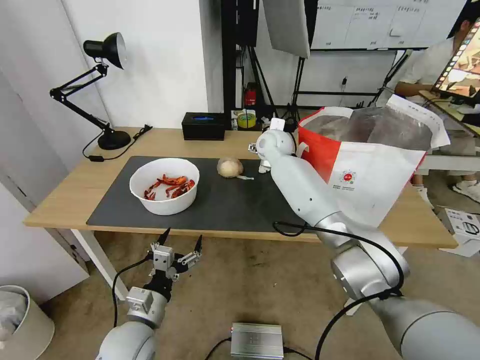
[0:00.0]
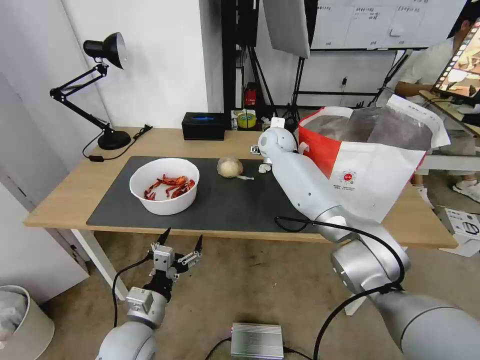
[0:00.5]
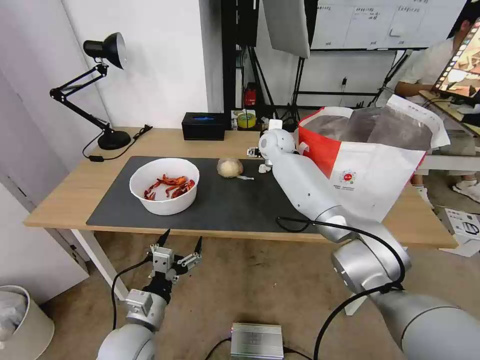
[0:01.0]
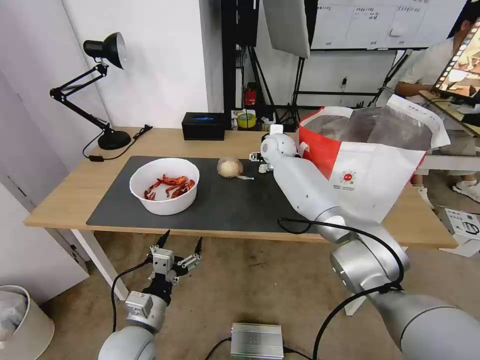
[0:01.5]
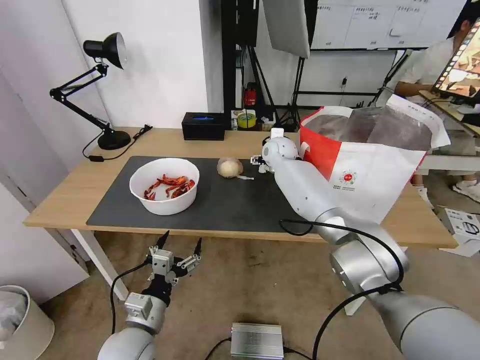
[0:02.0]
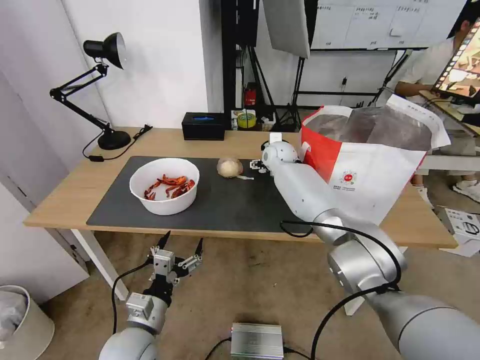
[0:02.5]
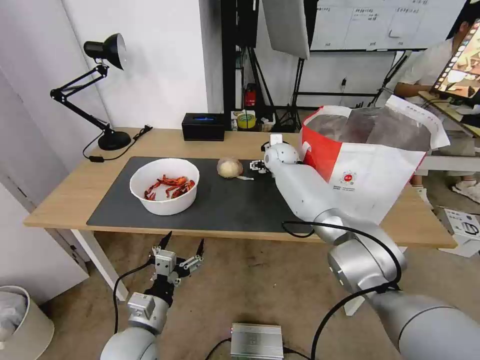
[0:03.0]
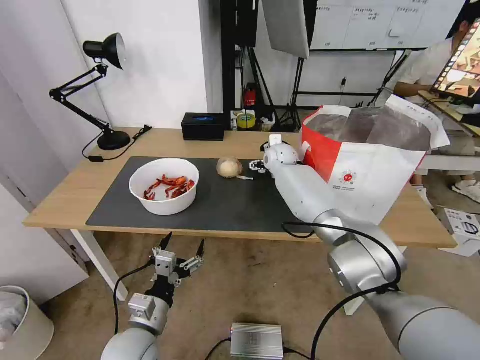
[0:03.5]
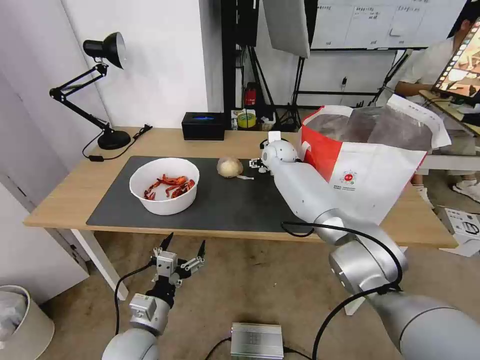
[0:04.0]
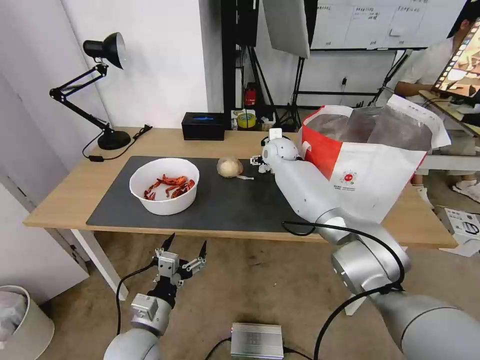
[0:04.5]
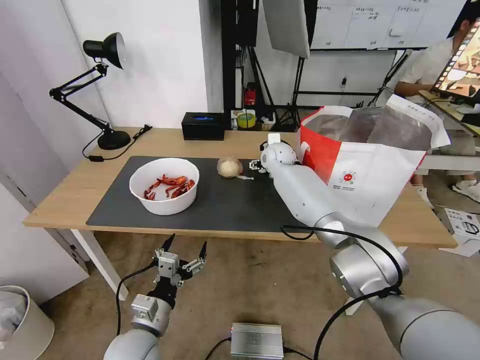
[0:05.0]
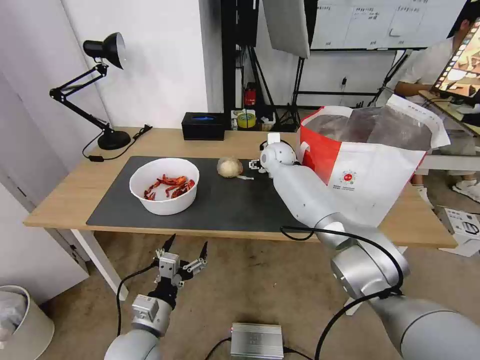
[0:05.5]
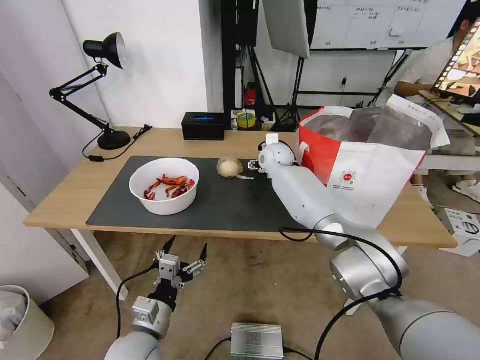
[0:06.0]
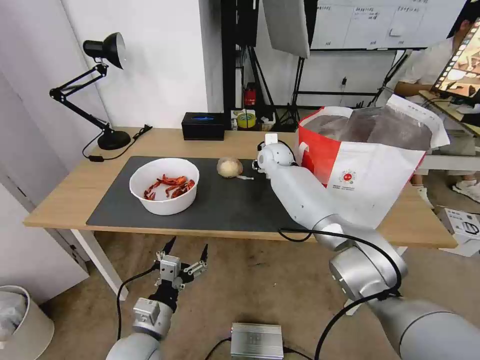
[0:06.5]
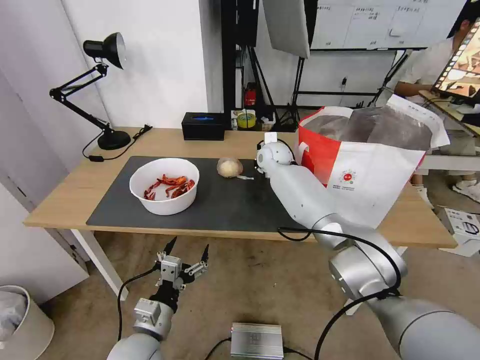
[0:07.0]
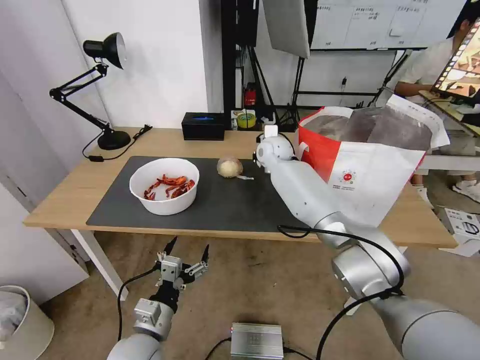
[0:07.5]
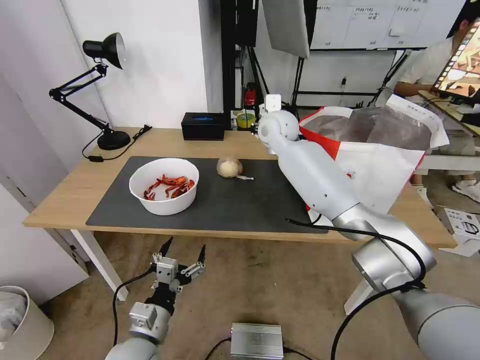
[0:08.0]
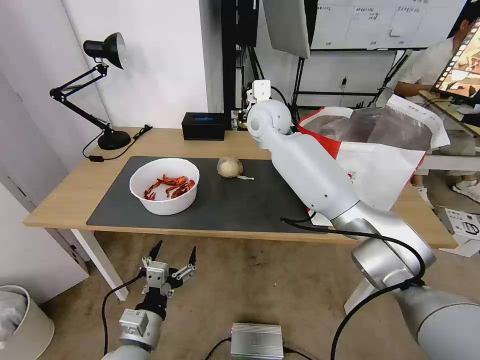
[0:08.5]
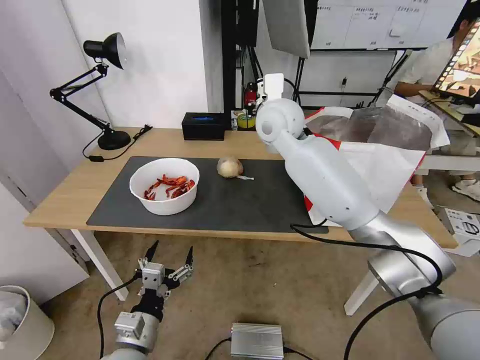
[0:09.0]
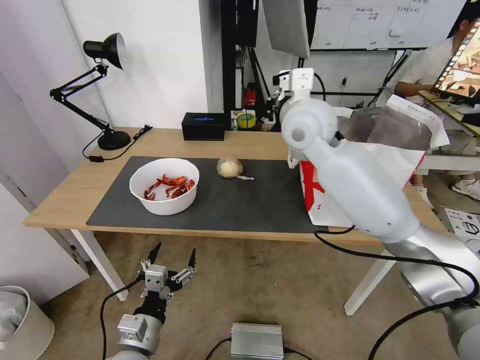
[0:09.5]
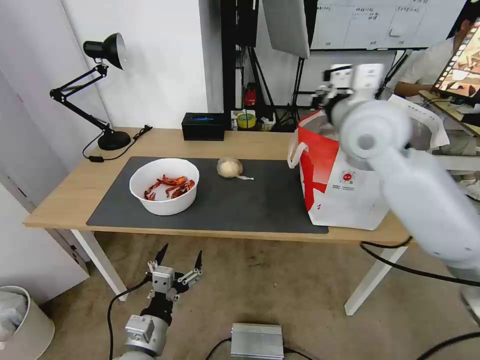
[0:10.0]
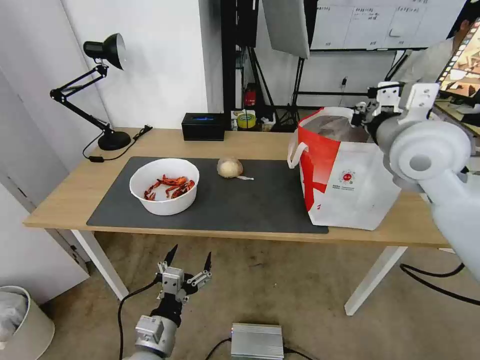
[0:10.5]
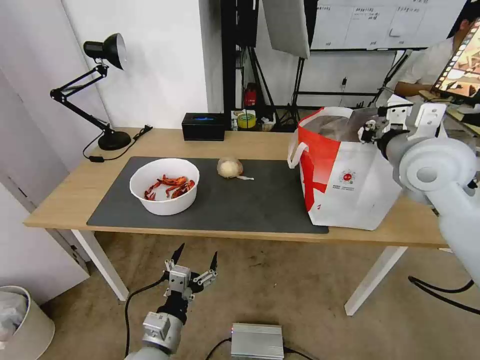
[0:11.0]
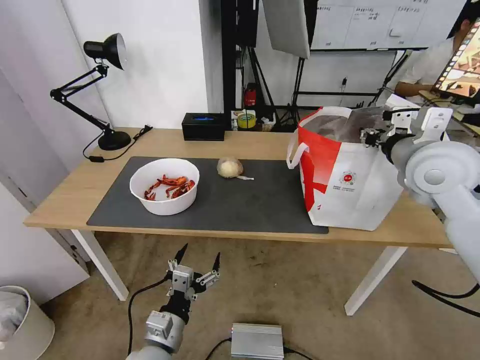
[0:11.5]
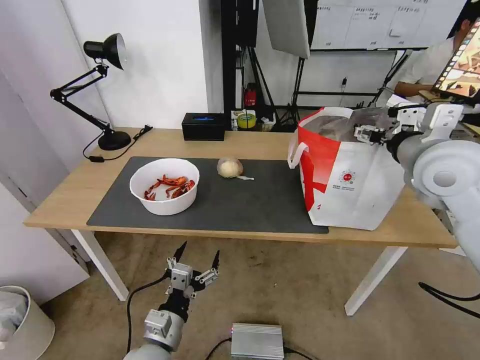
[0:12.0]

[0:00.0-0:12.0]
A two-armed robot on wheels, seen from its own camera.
Task of the whole recording: Pick up the trash from the table and place it into the takeout bag.
0.0 to 2.0 s: The grippers make only small movements.
2.0 to 6.0 s: There are only small adjustments of the grippers.
6.0 to 8.0 s: The right gripper shifts roughly 10 cm upward, and closes its fingers.
8.0 to 10.0 s: The right gripper shifts some 25 cm backward, to the right and upward.
10.0 to 12.0 s: The right gripper heads to the right and backward, covering roughly 10 cm, and opens its fingers.

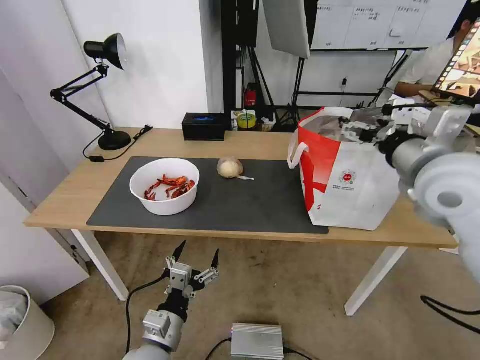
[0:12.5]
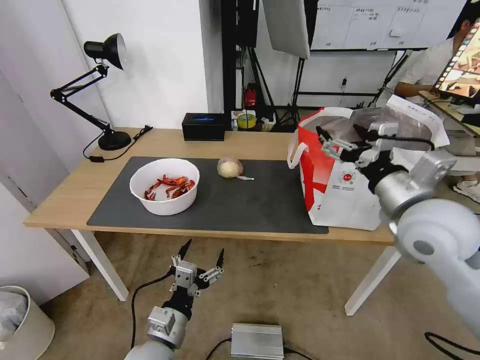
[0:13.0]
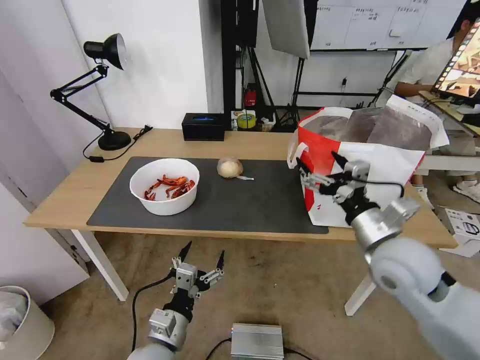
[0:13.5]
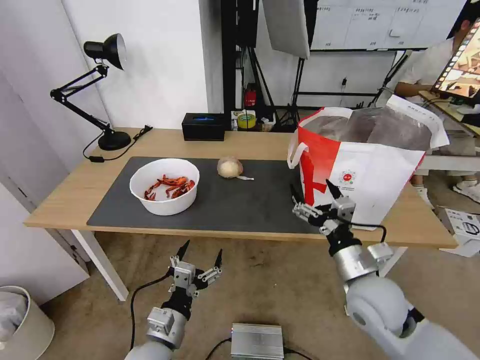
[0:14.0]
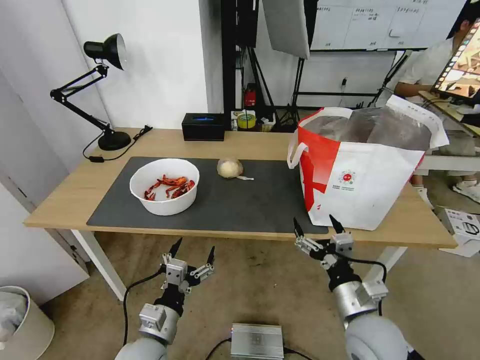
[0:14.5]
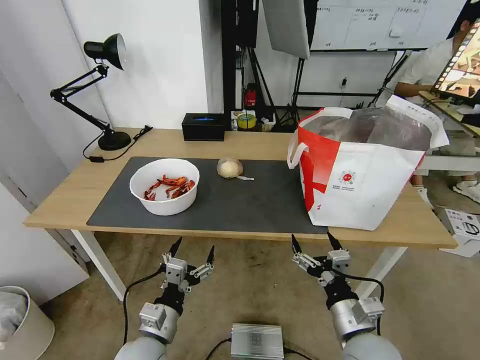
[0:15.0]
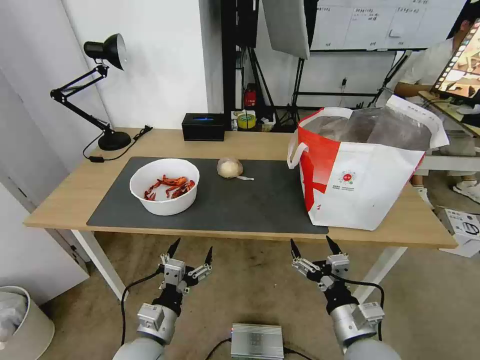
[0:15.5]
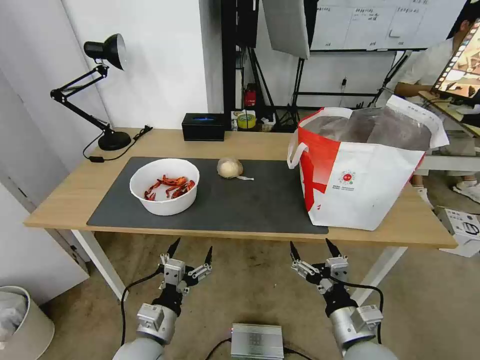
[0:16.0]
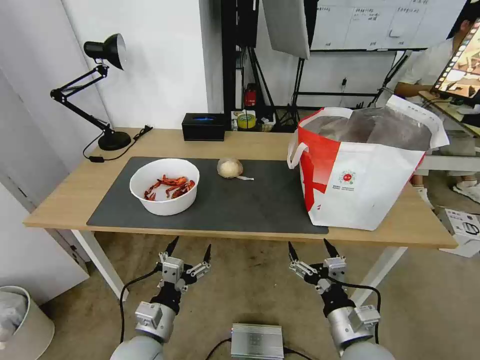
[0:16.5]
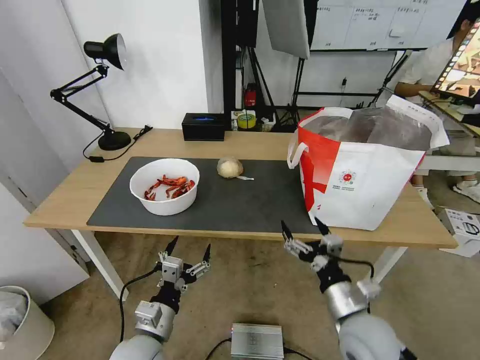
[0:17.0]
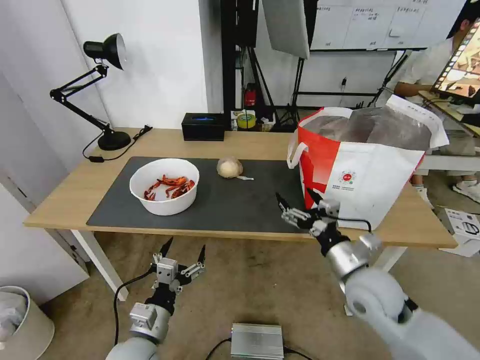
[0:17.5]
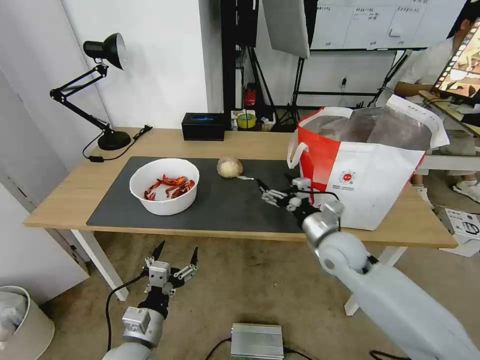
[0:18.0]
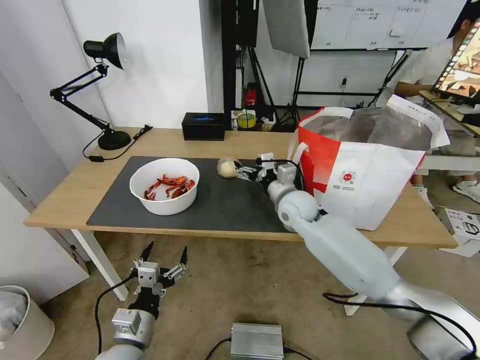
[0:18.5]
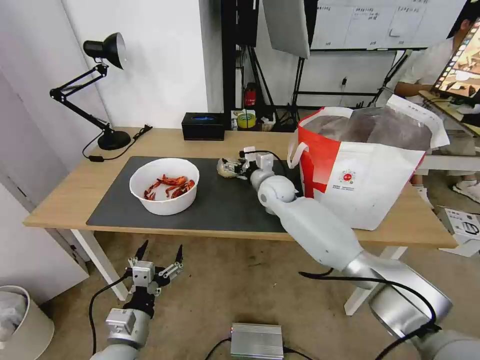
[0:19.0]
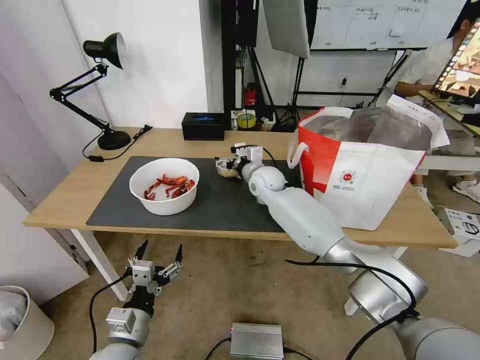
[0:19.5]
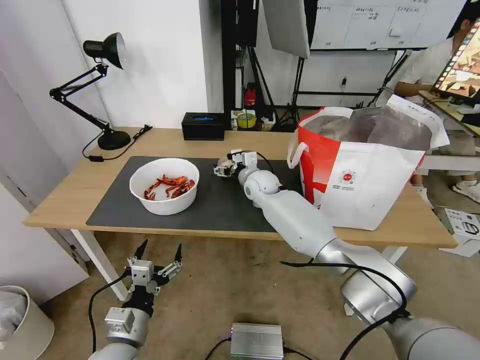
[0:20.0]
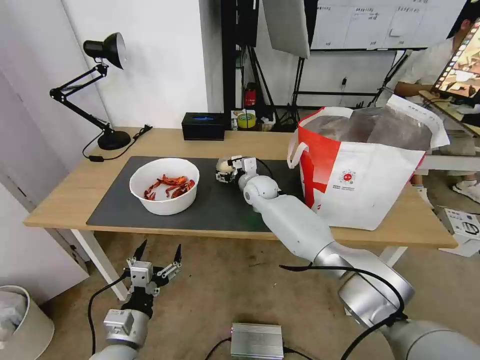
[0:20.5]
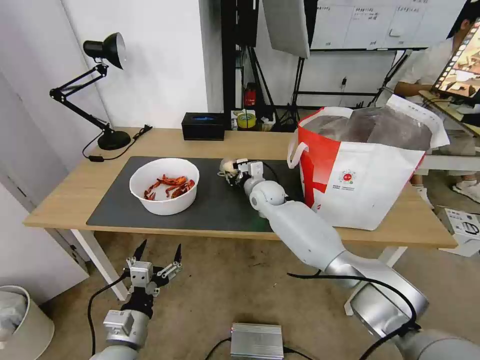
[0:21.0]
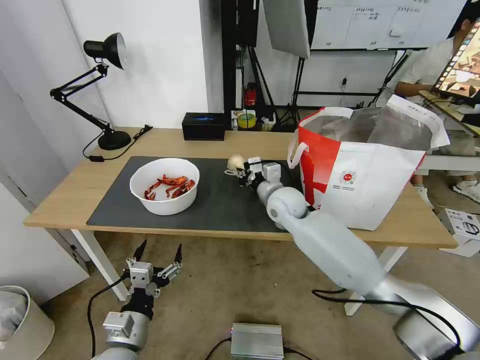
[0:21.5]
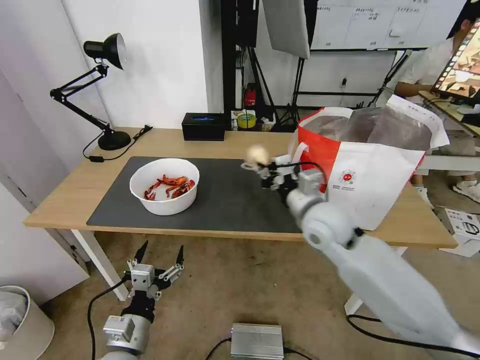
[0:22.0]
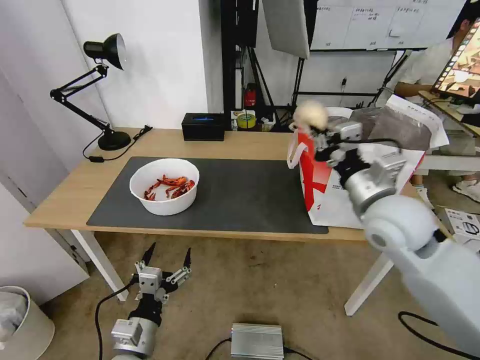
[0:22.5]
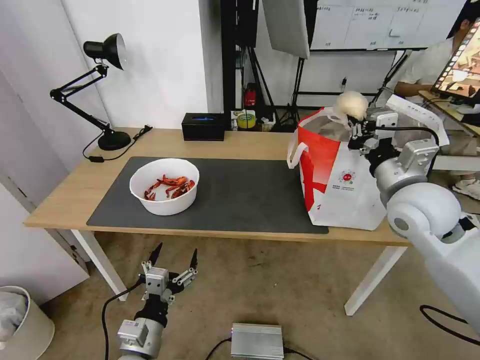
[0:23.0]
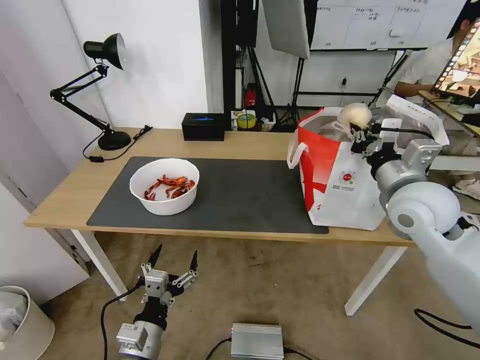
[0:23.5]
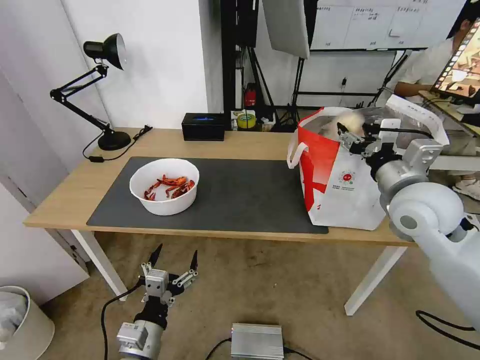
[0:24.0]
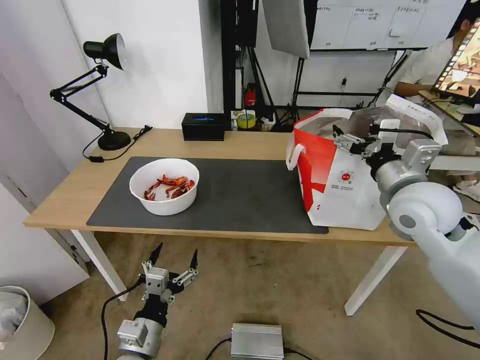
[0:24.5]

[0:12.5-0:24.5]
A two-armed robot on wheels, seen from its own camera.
Task of the whole recording: Pick up the trash from the table and place it into the takeout bag.
12.5 to 14.5 s: The right gripper travels downward and backward by some 30 cm.
14.5 to 16.5 s: The right gripper shifts by about 5 cm.
16.5 to 18.5 s: The right gripper goes some 35 cm forward.
18.5 to 20.5 s: The right gripper travels forward and to the left by some 10 cm.
20.5 to 22.5 s: The right gripper is displaced backward, to the right and upward by roughly 35 cm, and closes up.
22.5 to 24.5 s: The right gripper goes about 5 cm to the right, and opens its fingers.

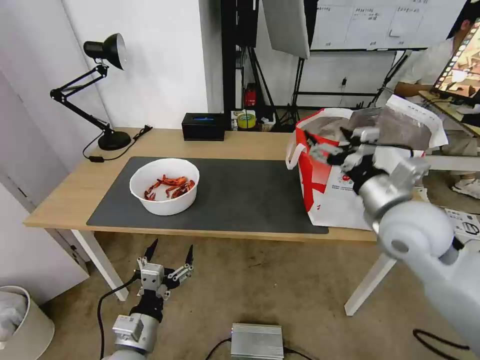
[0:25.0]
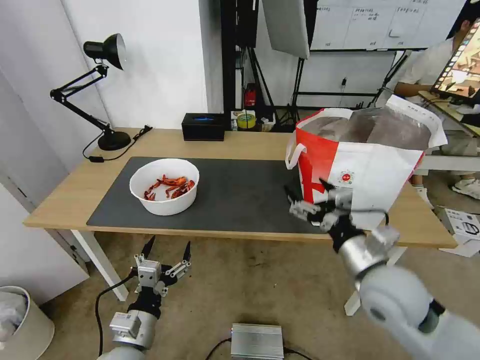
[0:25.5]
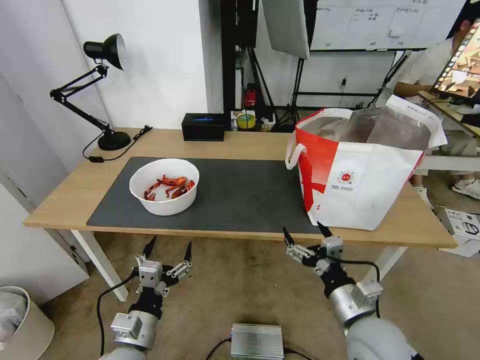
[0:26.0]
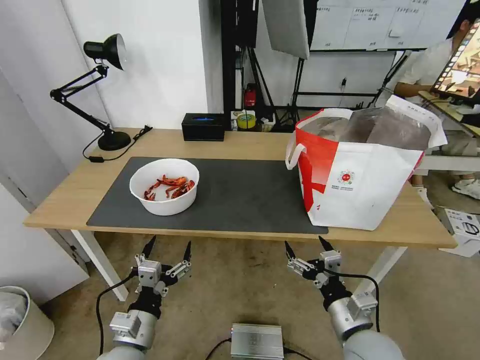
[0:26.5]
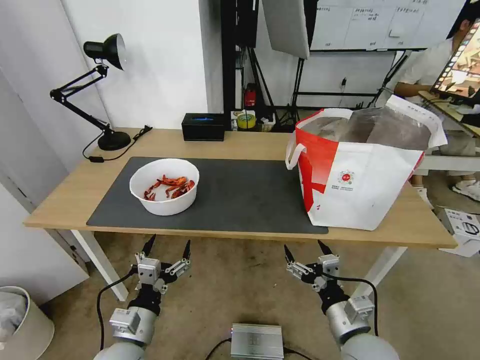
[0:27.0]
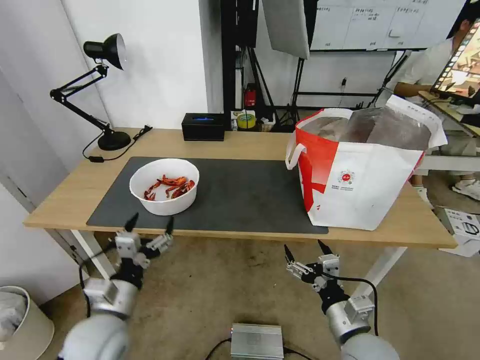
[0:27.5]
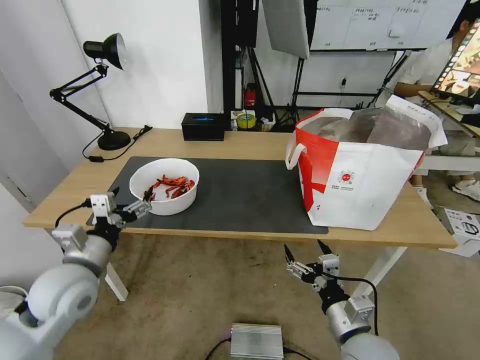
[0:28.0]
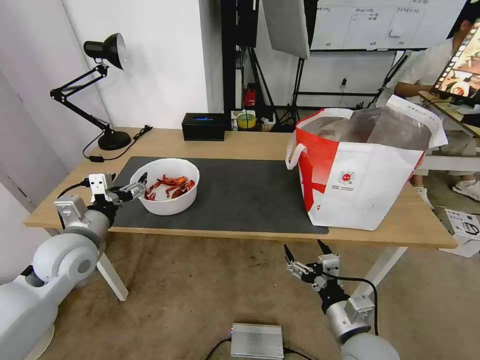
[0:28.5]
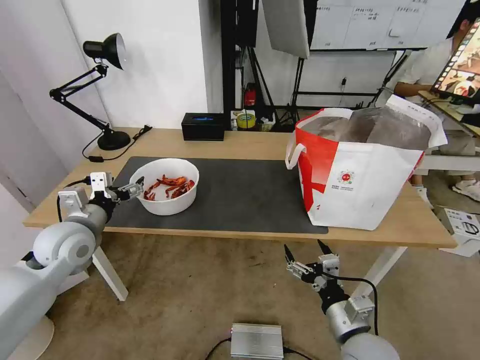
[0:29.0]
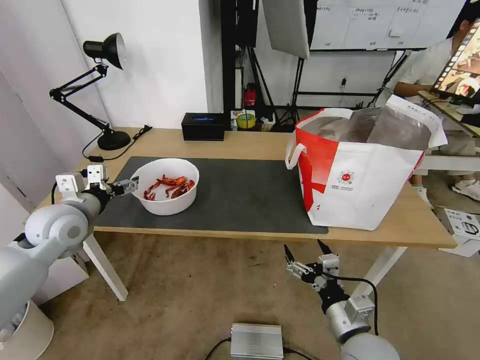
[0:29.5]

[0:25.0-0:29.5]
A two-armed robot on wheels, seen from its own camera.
Task of the whole recording: Pick up the trash from the table and place it into the takeout bag.
25.0 to 27.0 s: The right gripper moves downward and backward, approximately 25 cm.
27.0 to 29.5 s: The left gripper goes about 30 cm forward, upward and to the left.
